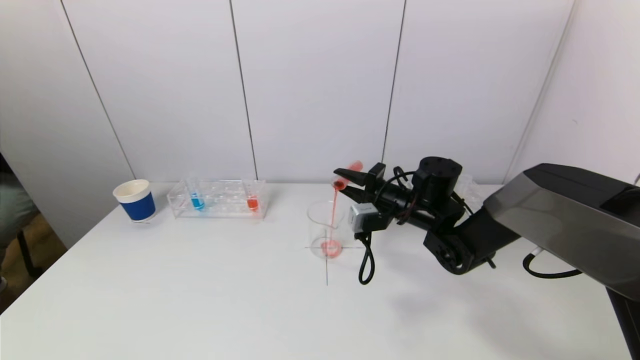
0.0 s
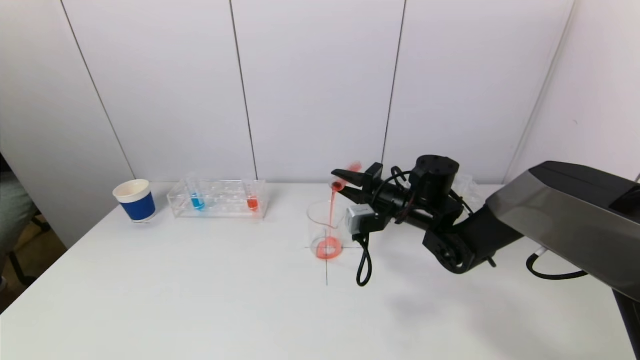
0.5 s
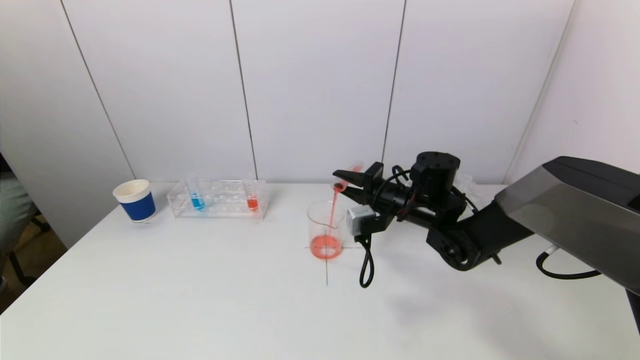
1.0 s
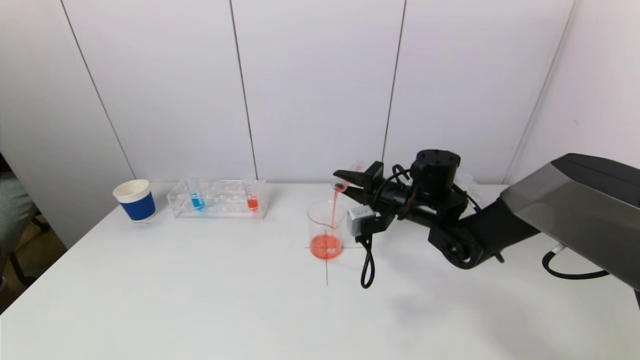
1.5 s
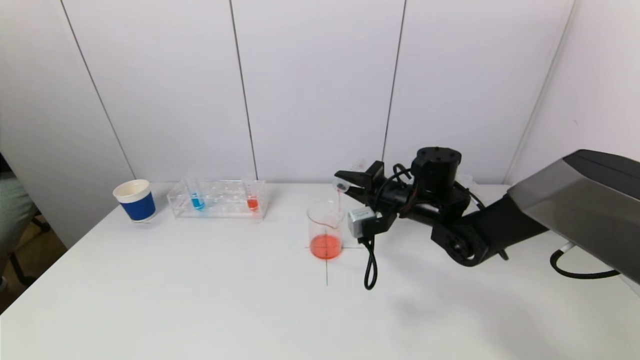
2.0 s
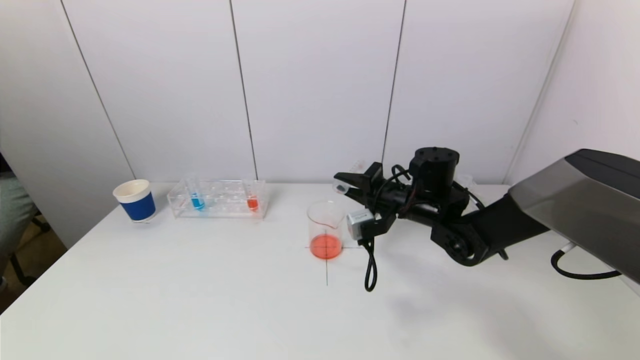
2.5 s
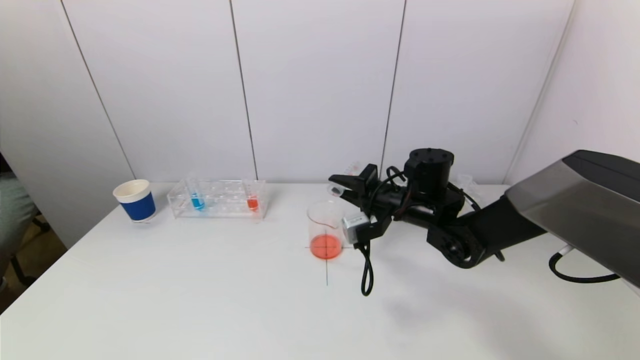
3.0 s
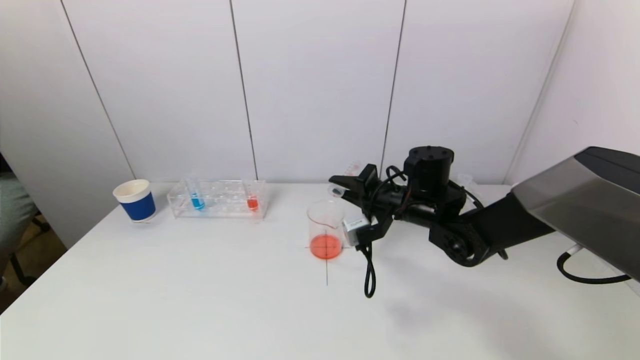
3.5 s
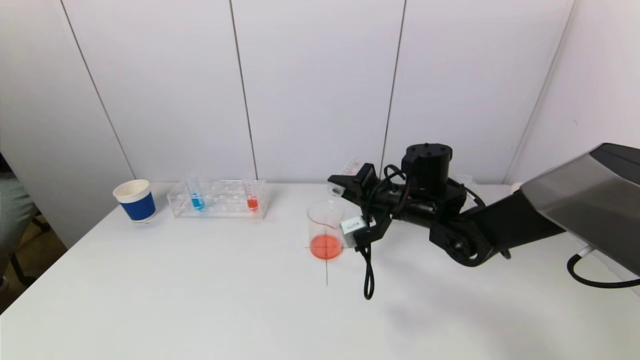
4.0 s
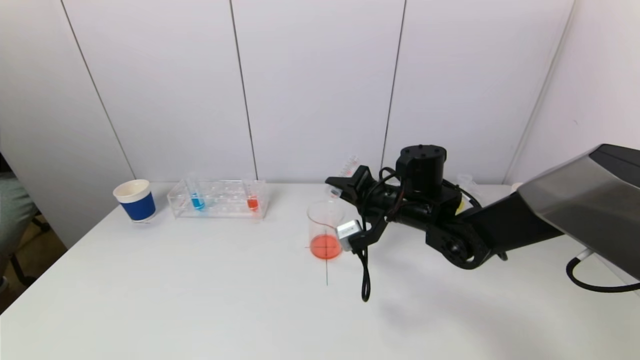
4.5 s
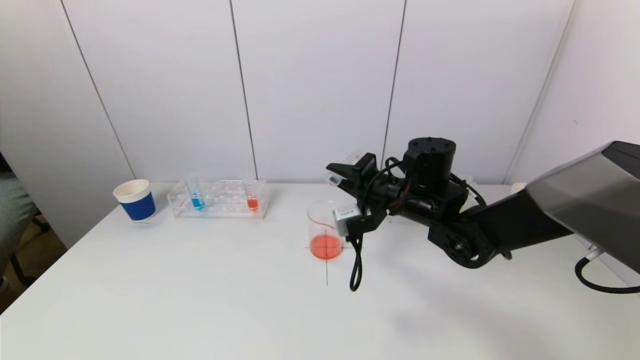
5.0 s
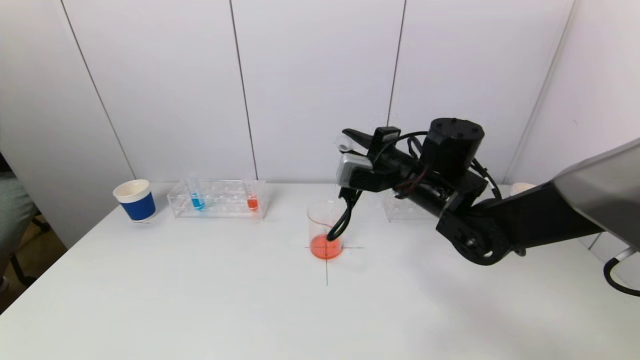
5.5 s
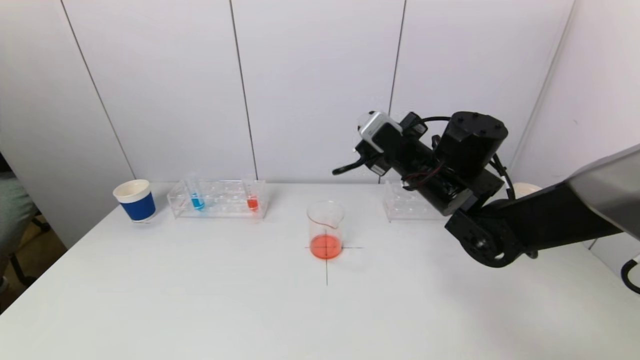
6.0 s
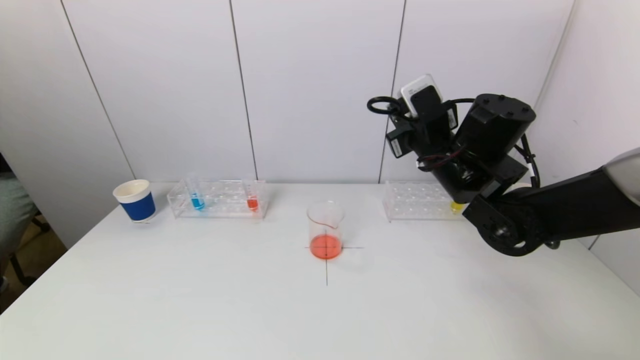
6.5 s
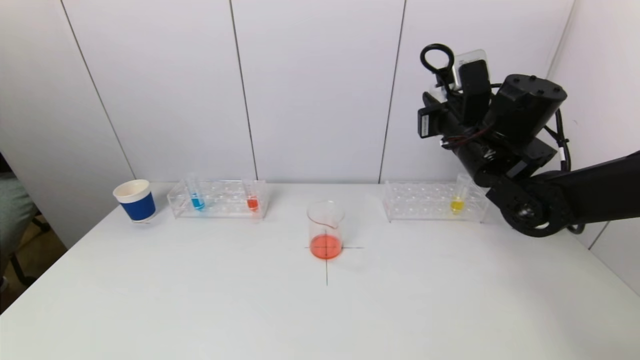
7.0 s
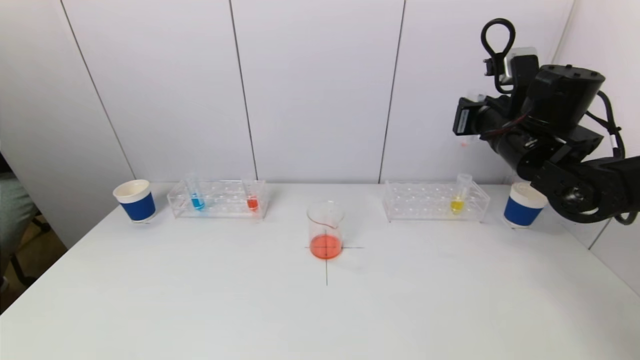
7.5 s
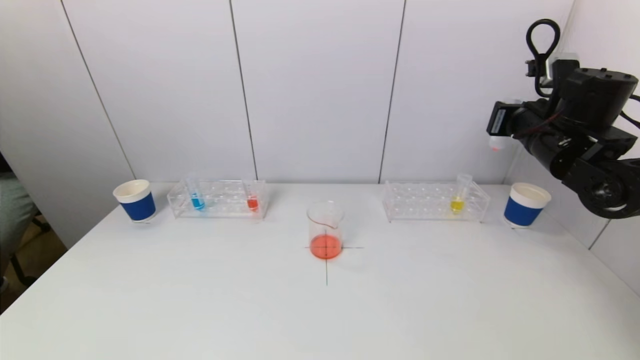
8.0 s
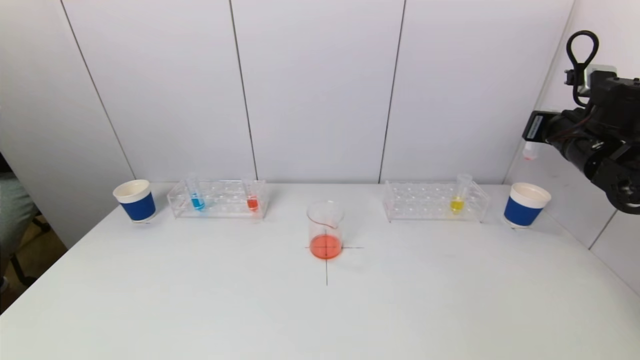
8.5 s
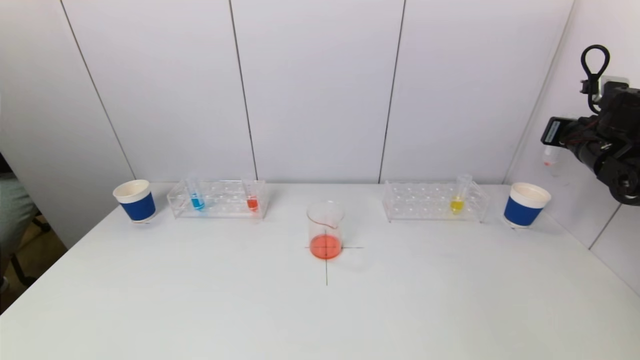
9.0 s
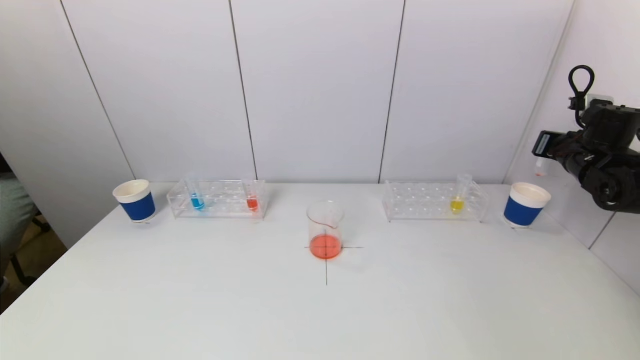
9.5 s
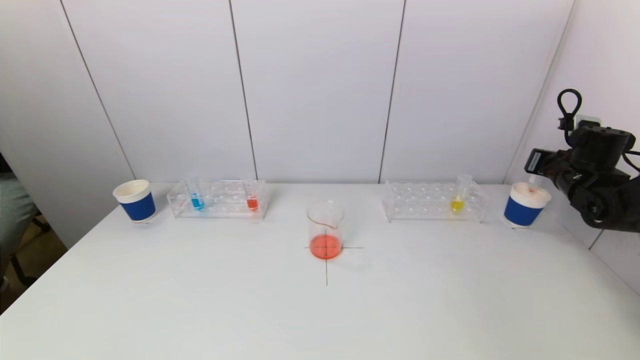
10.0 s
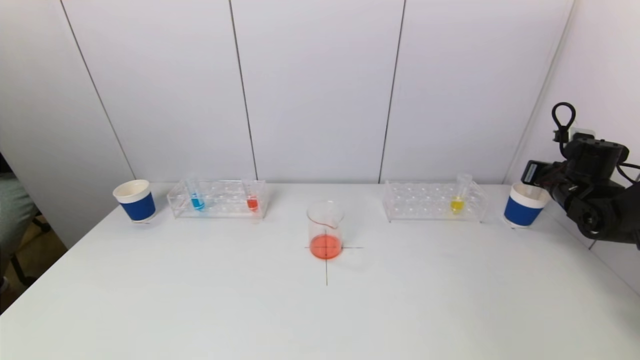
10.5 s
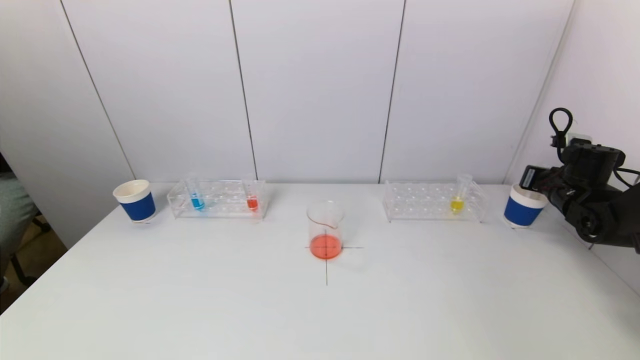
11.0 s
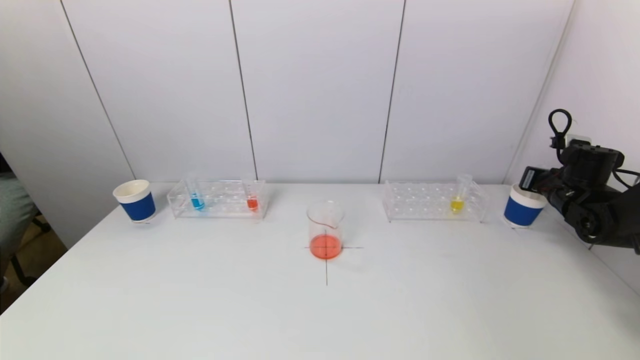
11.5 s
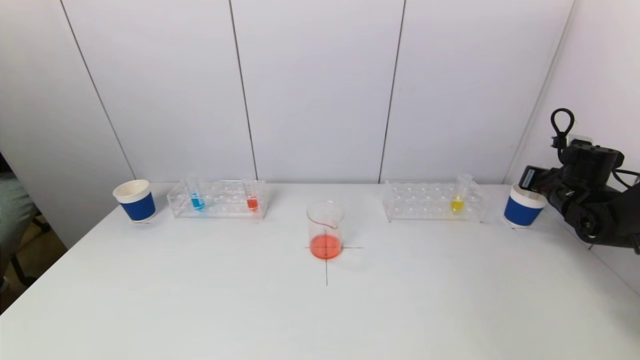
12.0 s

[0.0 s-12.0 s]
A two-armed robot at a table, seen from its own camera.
Task of the whole recording: pick up a test tube with pigment on left test tube rack and a test tube with pigment on right test tube rack by grippers and pour them into the beaker.
Step, 0.0 to 4.0 s: Pour the red reagent into the graduated cylinder with the right gripper.
0.0 to 2.0 s: The grippers make only small movements.
2.0 to 4.0 s: The grippers move only a little.
4.0 to 6.0 s: The right gripper shifts roughly 5 cm upward.
6.0 to 8.0 s: The right gripper is displaced to the right by about 15 cm.
8.0 to 10.0 s: The right gripper is displaced to the right, downward and forward by about 15 cm.
10.0 to 12.0 s: The grippers make only small movements.

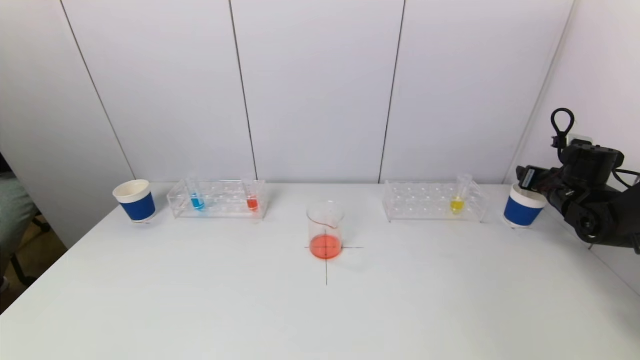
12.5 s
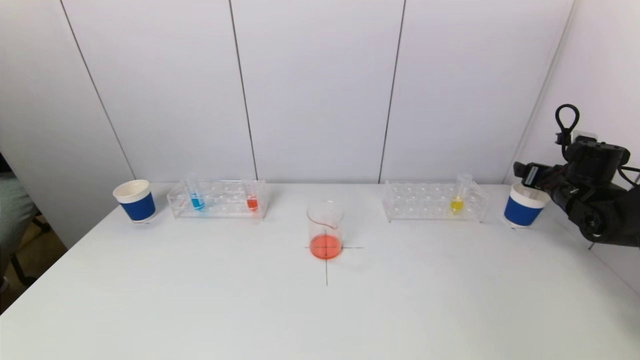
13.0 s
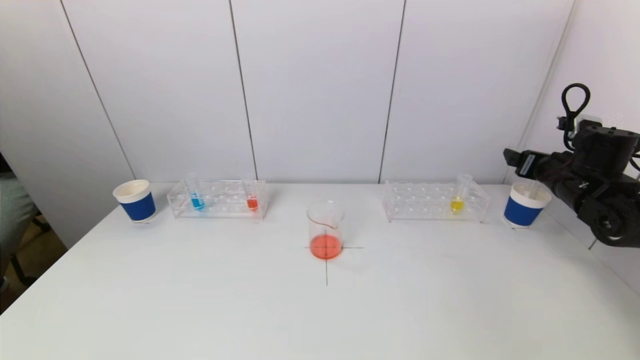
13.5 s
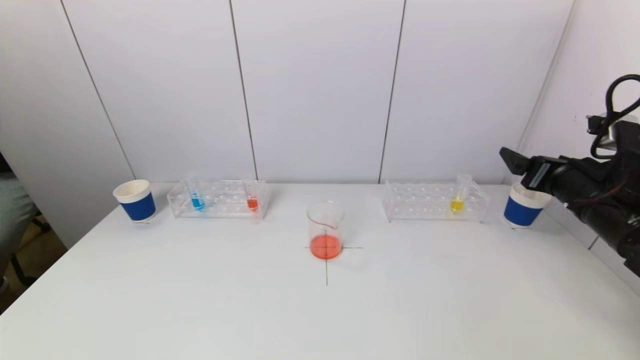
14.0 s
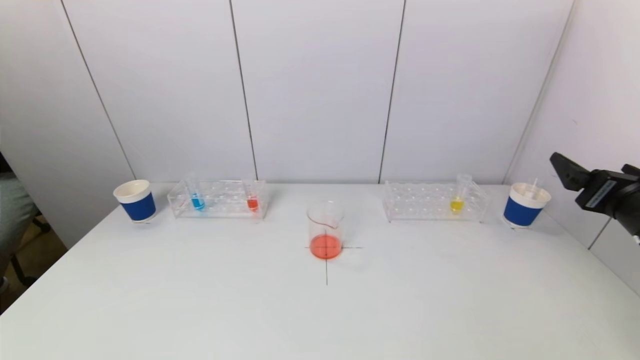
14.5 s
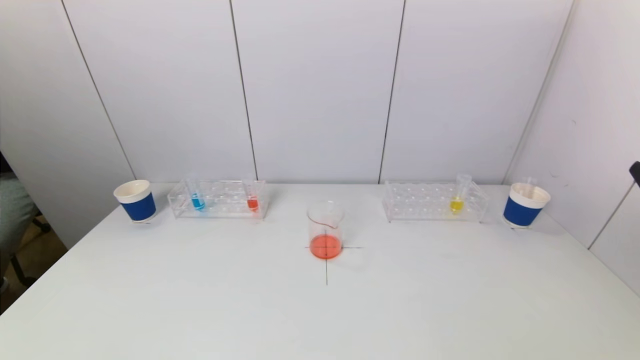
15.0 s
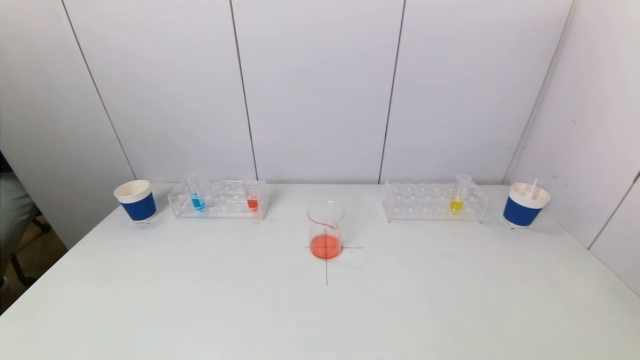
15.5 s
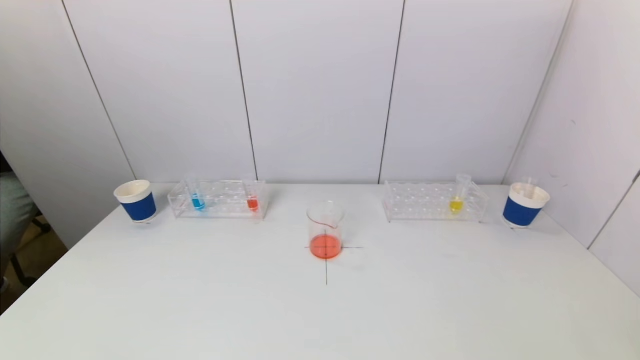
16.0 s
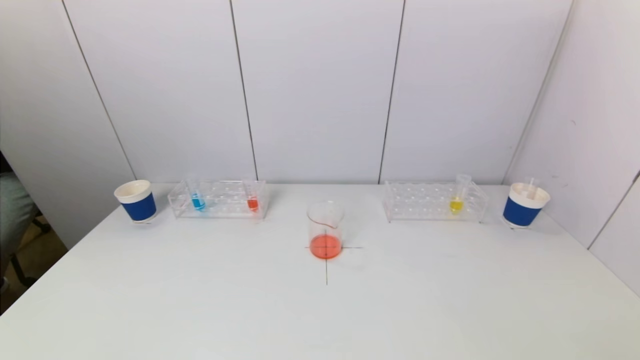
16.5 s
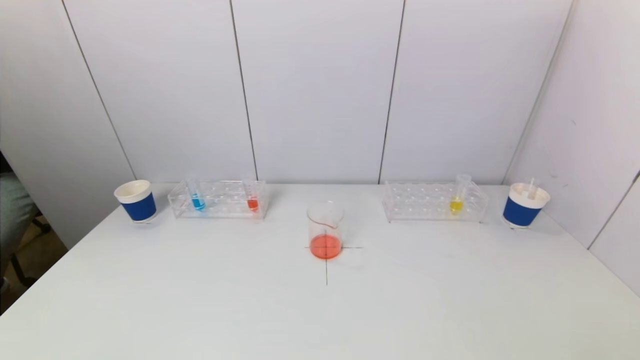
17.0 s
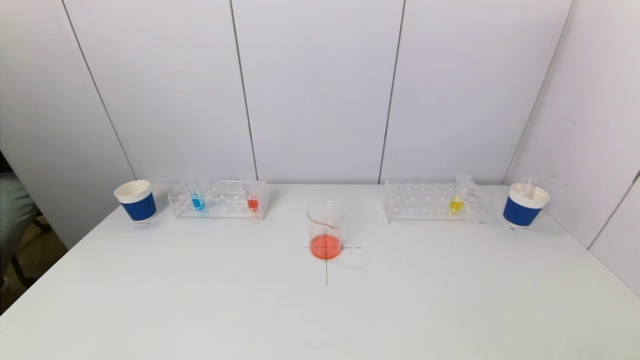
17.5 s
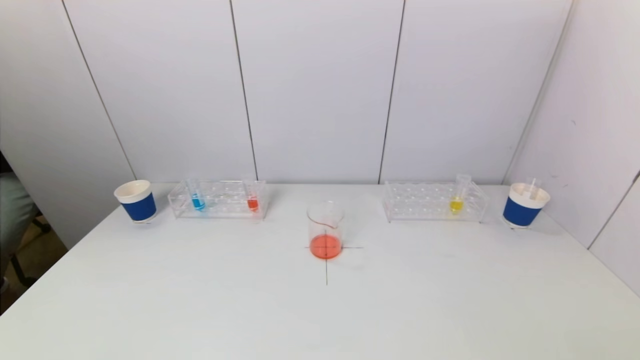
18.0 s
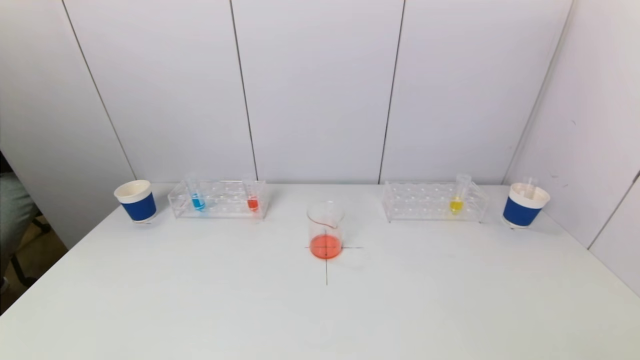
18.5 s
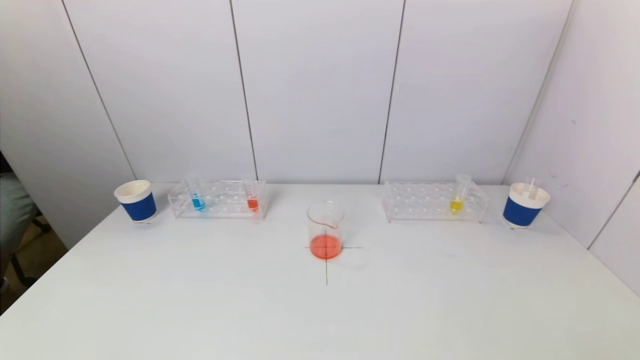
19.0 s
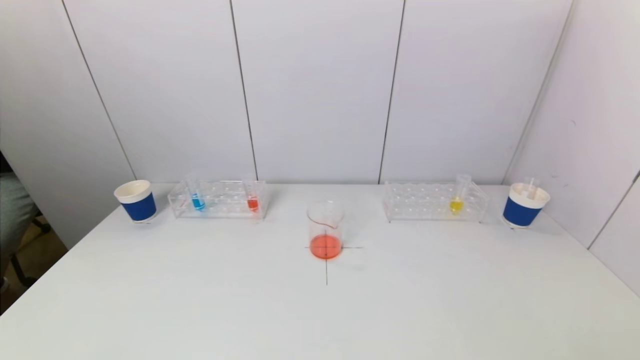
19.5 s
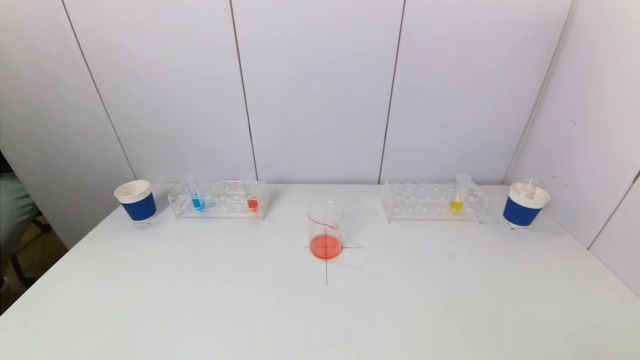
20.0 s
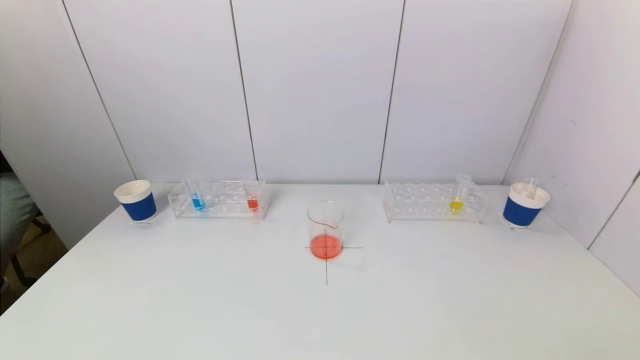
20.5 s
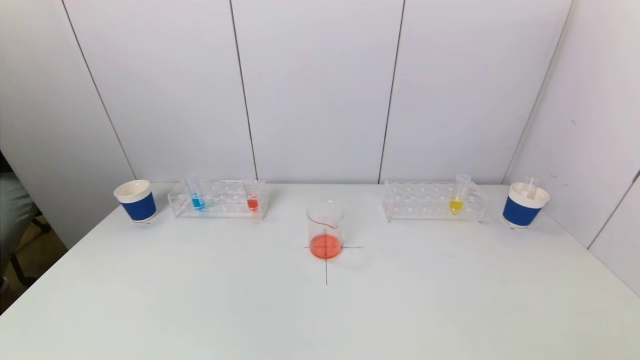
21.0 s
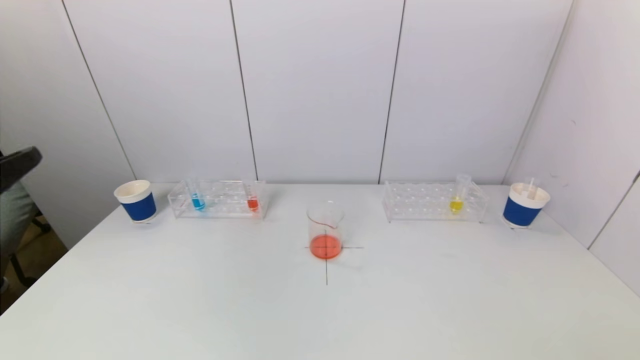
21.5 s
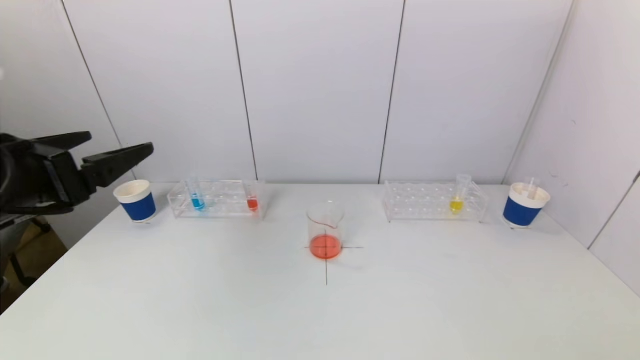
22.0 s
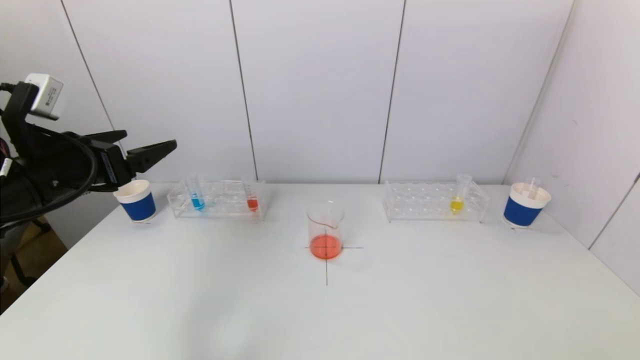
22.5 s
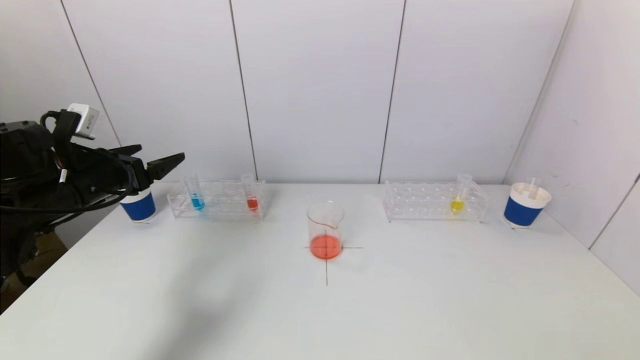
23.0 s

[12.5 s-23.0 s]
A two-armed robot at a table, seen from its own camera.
Task of the whole recording: pick up a test tube with pigment on left test tube rack and a test tube with pigment on right test tube rack by grippers and pour them into the beaker.
12.5 to 14.5 s: The right gripper travels backward, to the left and upward by about 25 cm.
14.5 to 16.5 s: The right gripper is displaced backward and downward by about 25 cm.
21.0 to 23.0 s: The left gripper shifts approximately 30 cm forward.
